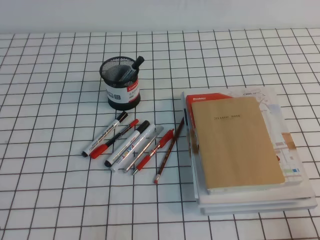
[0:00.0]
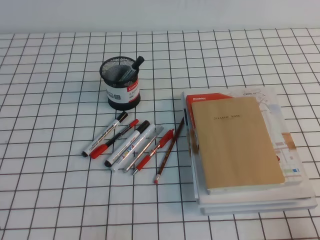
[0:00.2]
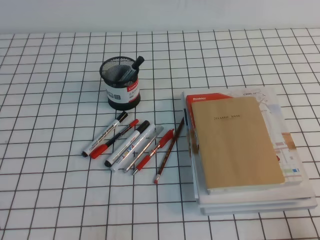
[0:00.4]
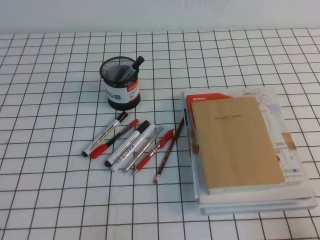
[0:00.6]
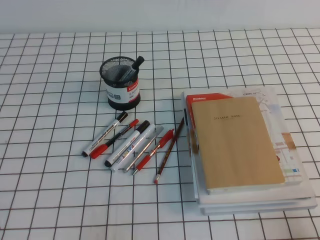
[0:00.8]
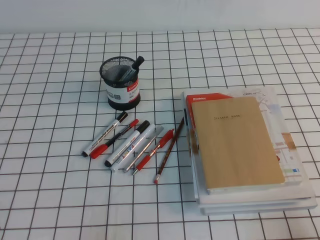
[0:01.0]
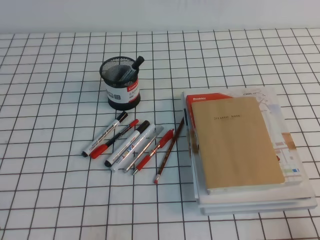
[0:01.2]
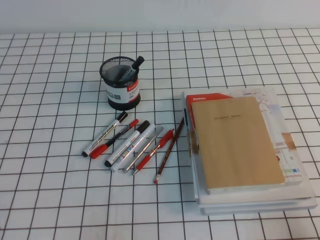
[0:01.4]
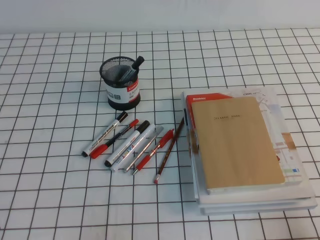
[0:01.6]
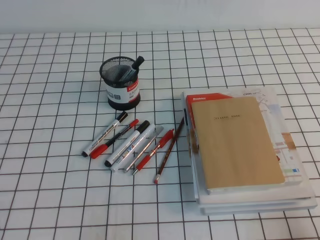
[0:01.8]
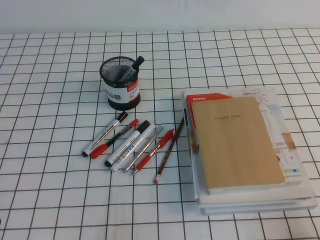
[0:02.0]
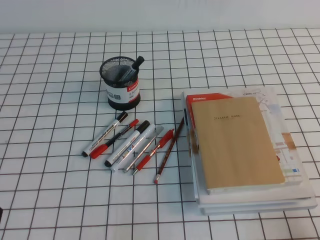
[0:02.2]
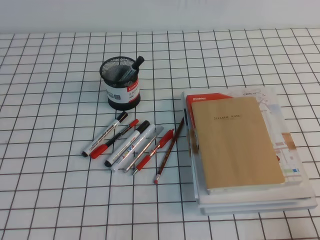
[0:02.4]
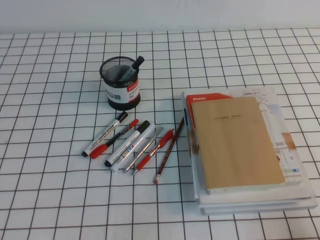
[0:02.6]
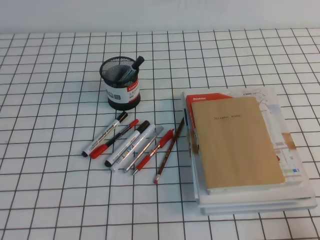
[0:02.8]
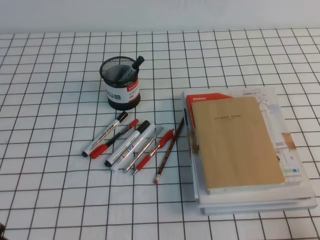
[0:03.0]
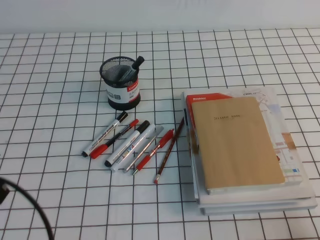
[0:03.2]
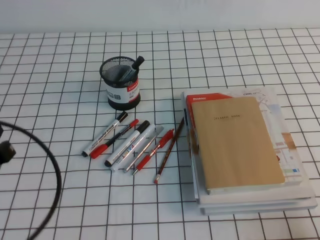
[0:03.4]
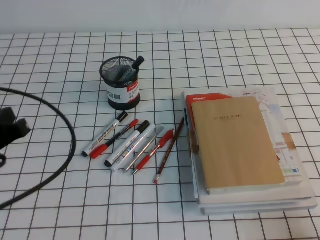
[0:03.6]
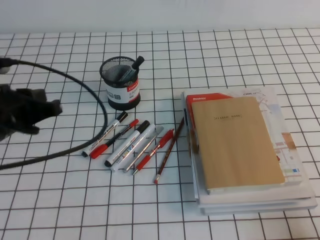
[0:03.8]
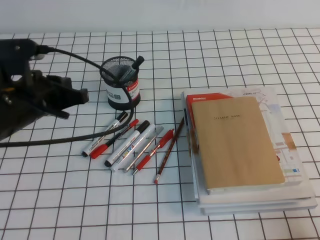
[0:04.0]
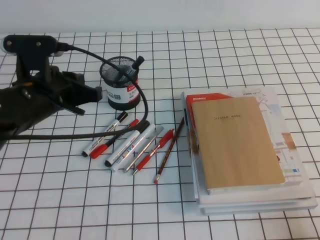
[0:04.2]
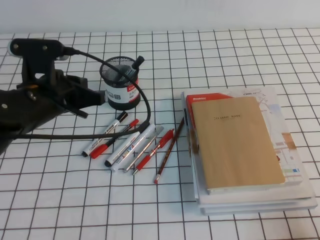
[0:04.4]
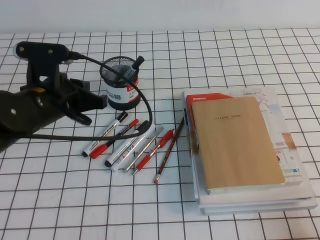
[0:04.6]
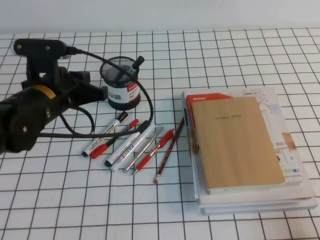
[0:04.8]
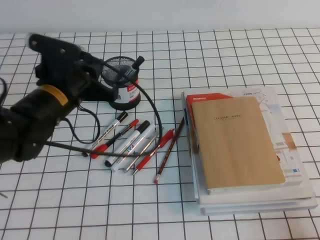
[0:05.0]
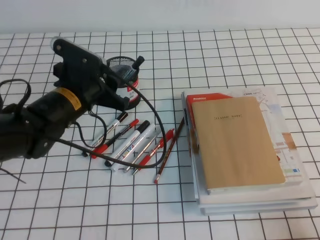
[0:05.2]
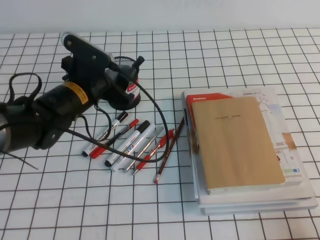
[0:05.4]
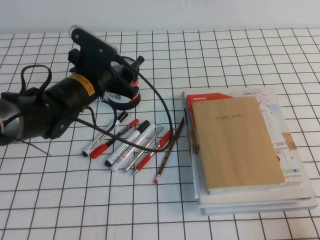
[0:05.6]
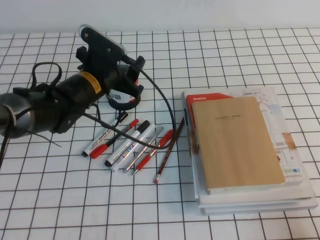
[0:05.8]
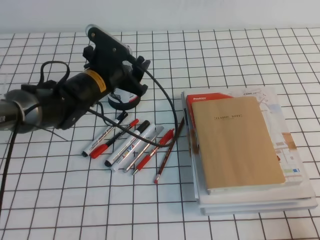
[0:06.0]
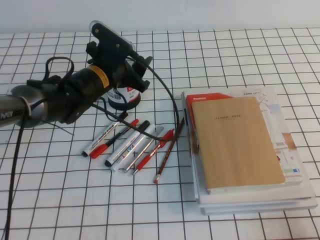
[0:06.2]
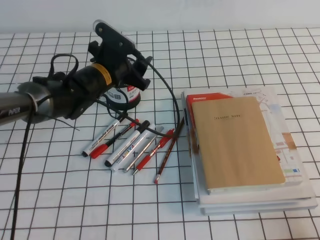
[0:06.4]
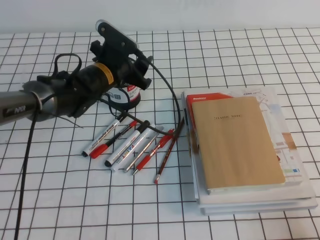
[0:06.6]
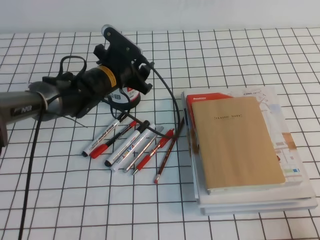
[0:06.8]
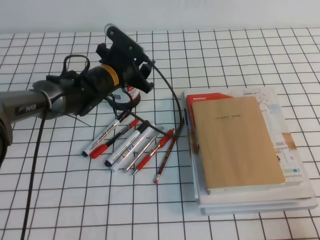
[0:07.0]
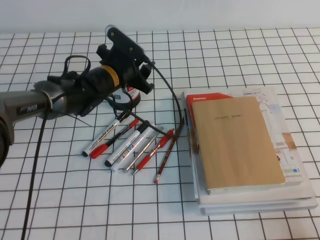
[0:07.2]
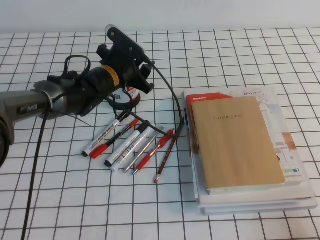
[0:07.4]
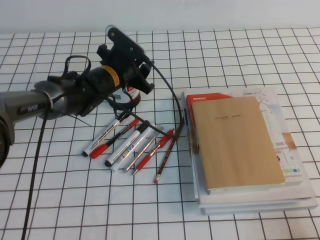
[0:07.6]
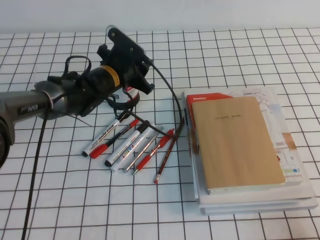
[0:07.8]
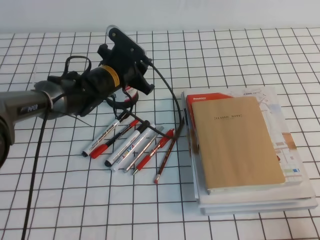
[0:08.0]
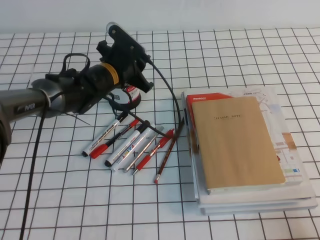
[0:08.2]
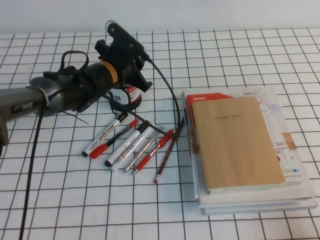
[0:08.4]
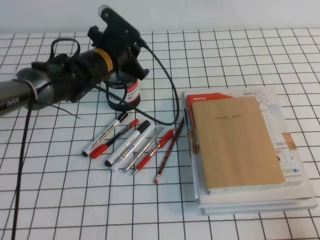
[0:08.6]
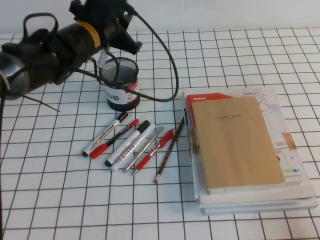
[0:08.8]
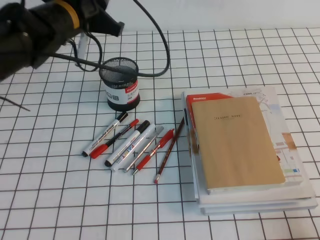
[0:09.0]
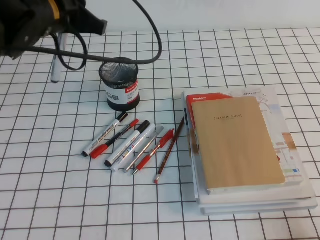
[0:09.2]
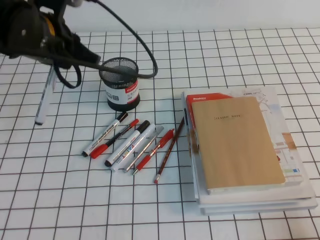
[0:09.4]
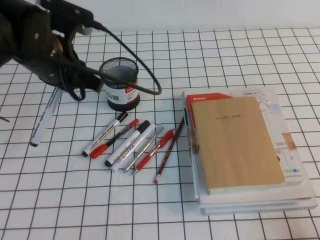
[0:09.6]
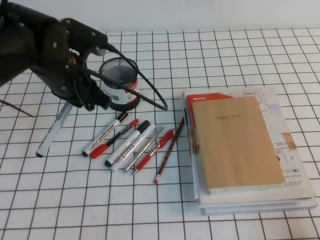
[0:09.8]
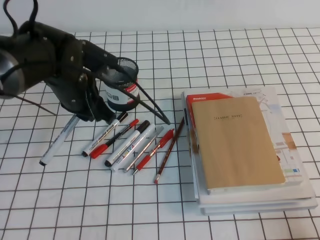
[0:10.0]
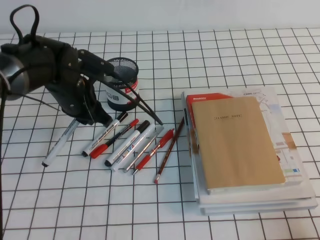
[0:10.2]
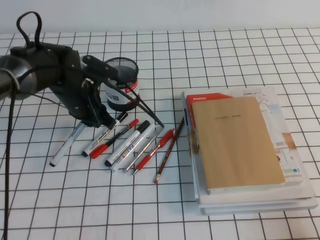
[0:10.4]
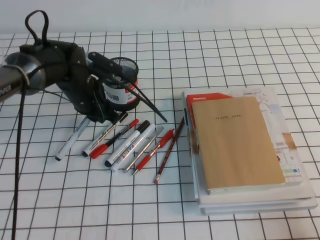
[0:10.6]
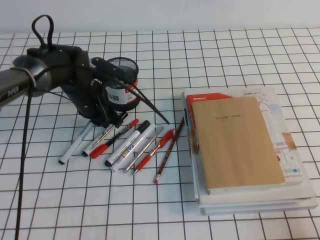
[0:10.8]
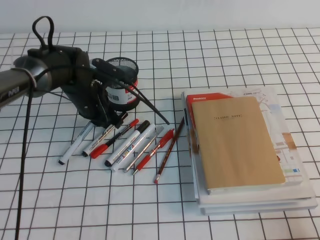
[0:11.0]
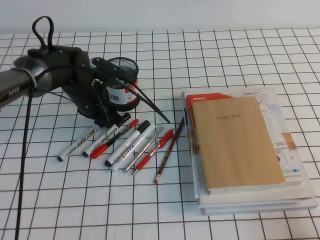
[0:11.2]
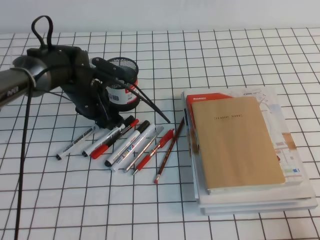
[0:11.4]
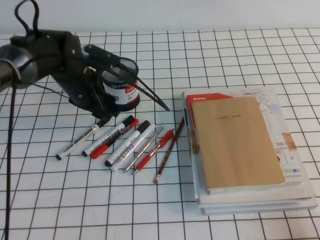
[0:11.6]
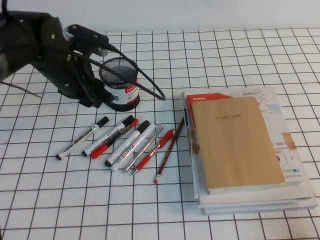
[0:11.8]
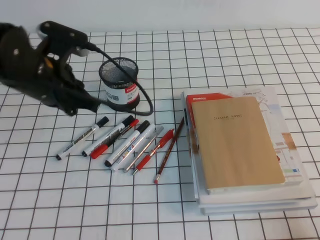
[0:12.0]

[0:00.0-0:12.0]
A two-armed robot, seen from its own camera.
0:00.0 to 0:01.6: The two grippers keep their place.
0:03.0 to 0:04.4: The left gripper heads forward and to the right, covering some 25 cm.
0:04.4 to 0:06.0: The left gripper travels forward, to the right and downward by approximately 15 cm, and opens its fingers.
0:06.0 to 0:07.6: The left gripper changes place by approximately 5 cm.
0:07.6 to 0:09.0: The left gripper goes approximately 15 cm upward, and closes.
0:09.0 to 0:10.4: The left gripper moves downward, approximately 10 cm.
0:10.4 to 0:12.0: The left gripper goes about 10 cm upward and backward, and opens, then closes once more.

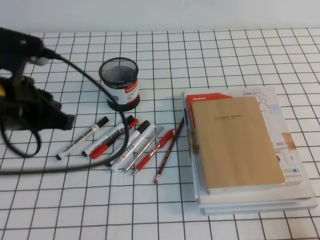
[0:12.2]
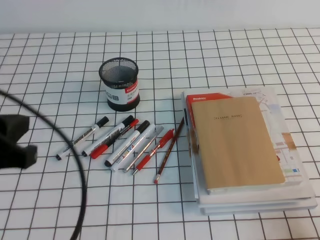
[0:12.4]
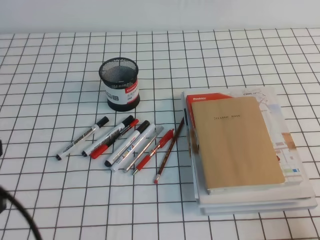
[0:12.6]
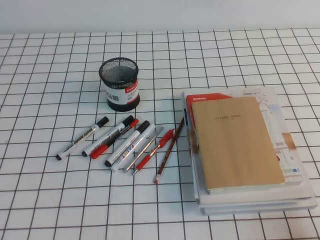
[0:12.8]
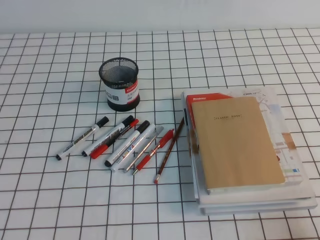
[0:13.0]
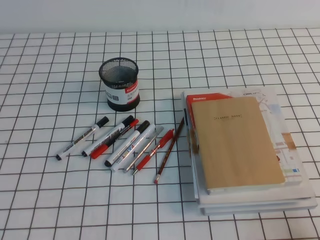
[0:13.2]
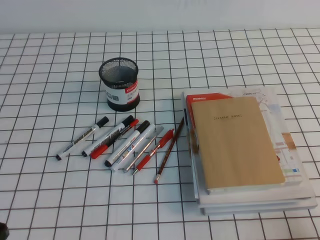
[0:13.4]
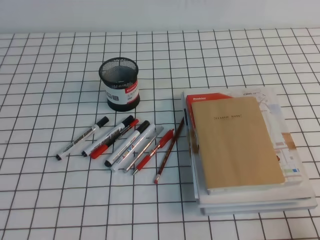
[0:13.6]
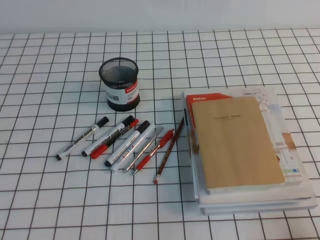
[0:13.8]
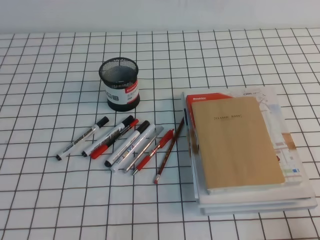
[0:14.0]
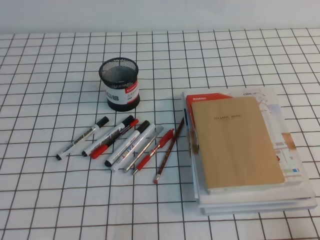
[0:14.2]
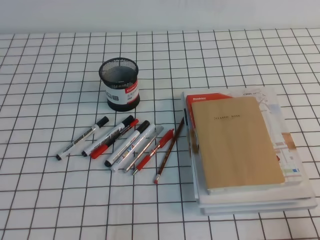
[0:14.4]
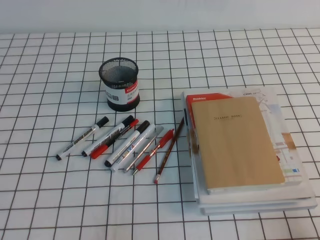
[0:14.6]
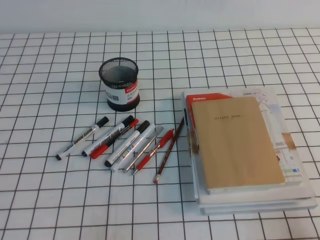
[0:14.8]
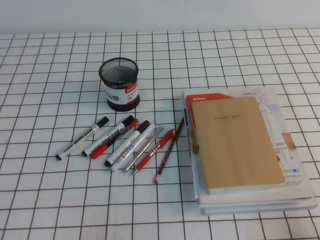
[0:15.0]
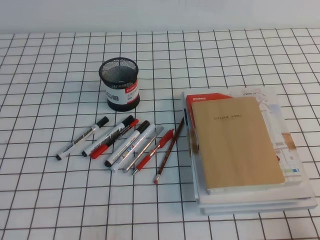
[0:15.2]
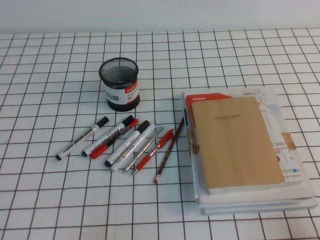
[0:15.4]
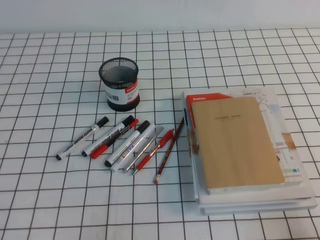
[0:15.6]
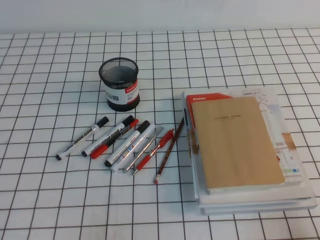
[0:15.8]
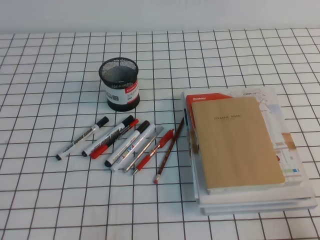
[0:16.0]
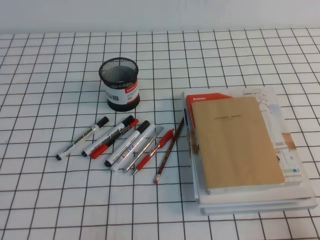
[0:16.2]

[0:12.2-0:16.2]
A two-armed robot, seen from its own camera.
Step, 0:12.2 to 0:16.2: Pick up the pen from the pen holder.
0:12.2 to 0:13.6: The left gripper travels backward and to the left by some 20 cm.
0:14.8 to 0:16.2: Both grippers stay about where they are.
